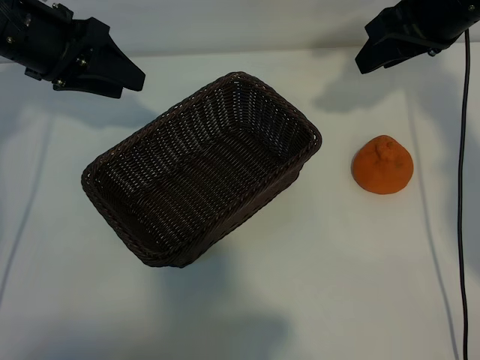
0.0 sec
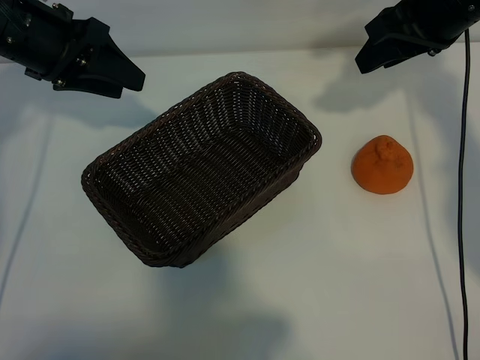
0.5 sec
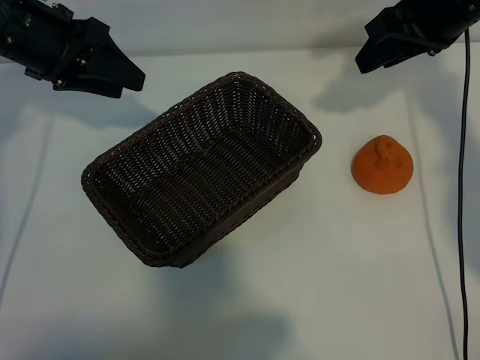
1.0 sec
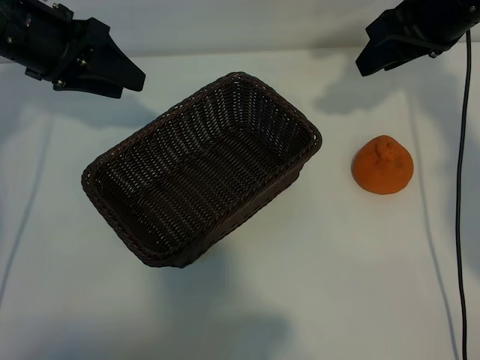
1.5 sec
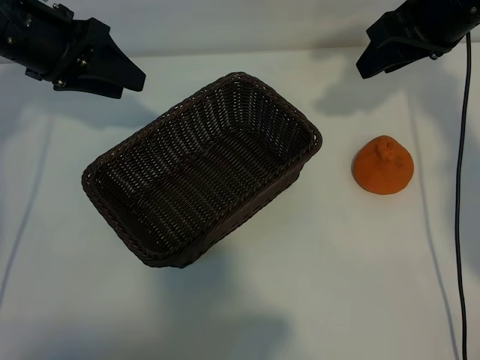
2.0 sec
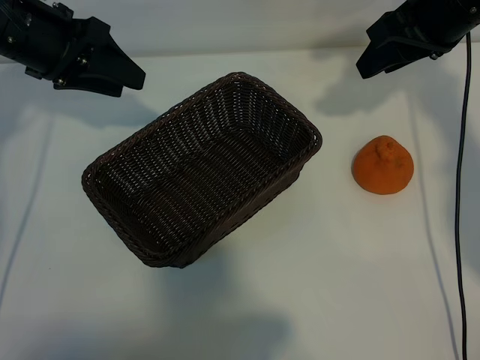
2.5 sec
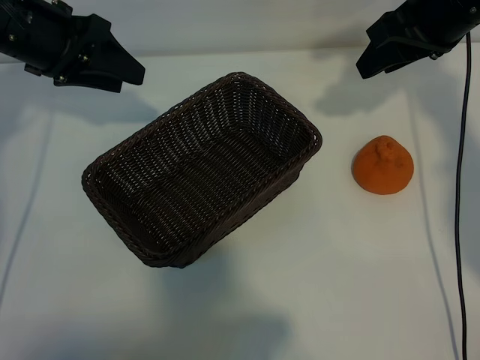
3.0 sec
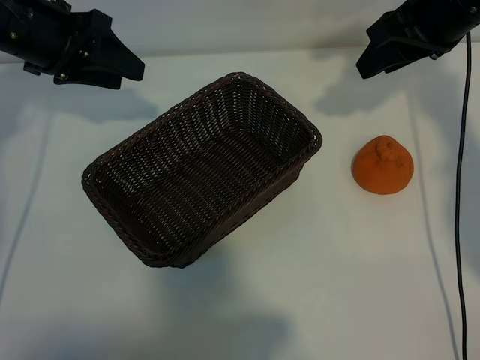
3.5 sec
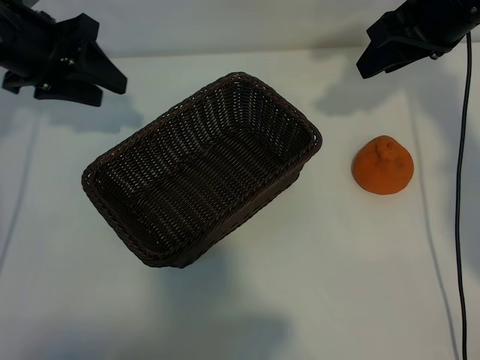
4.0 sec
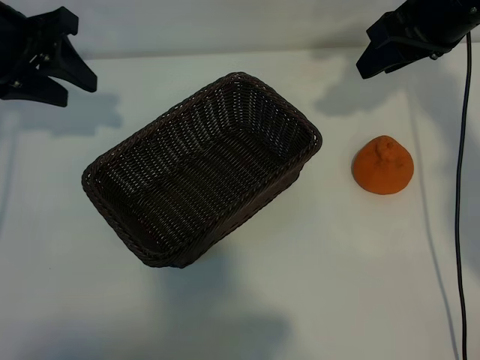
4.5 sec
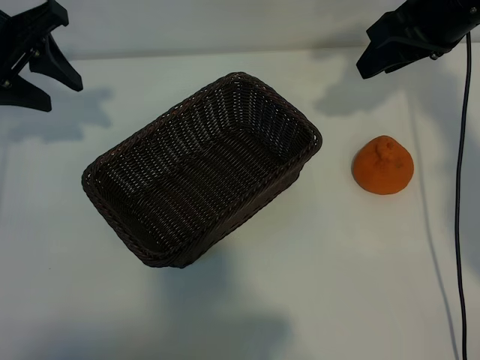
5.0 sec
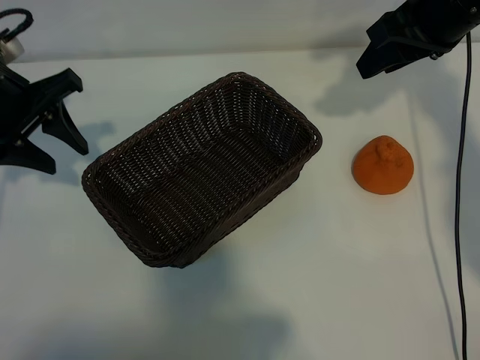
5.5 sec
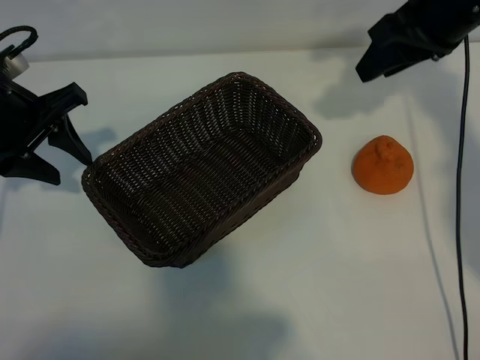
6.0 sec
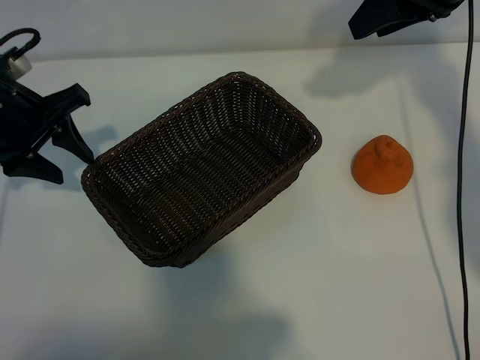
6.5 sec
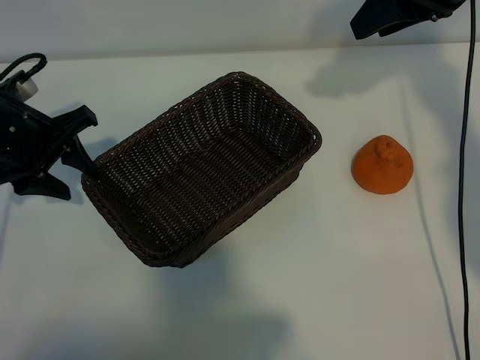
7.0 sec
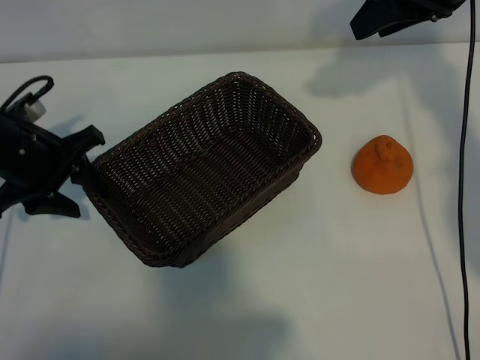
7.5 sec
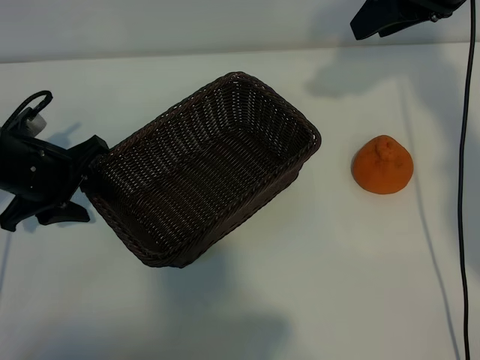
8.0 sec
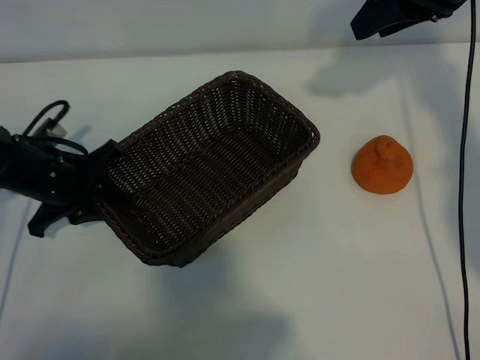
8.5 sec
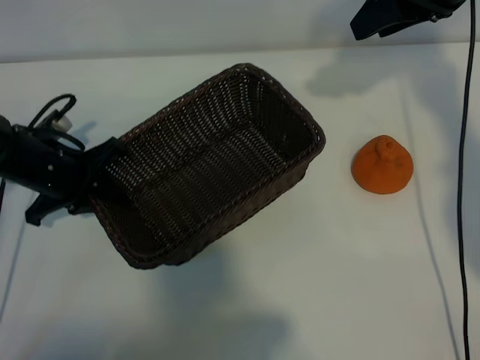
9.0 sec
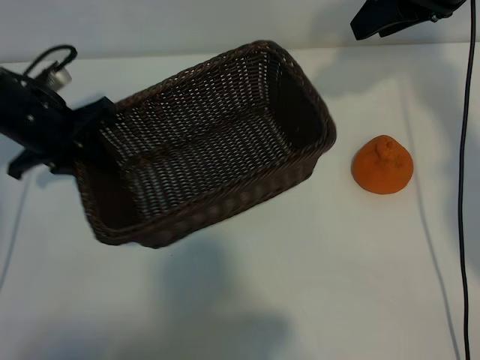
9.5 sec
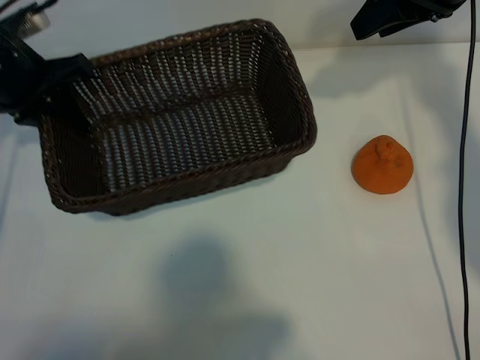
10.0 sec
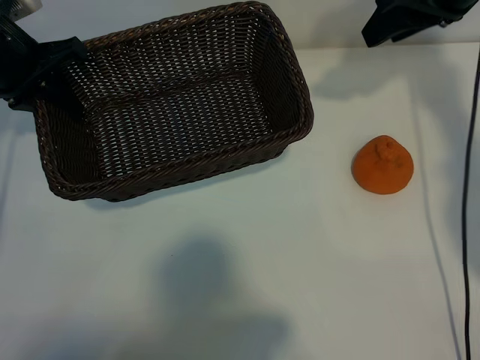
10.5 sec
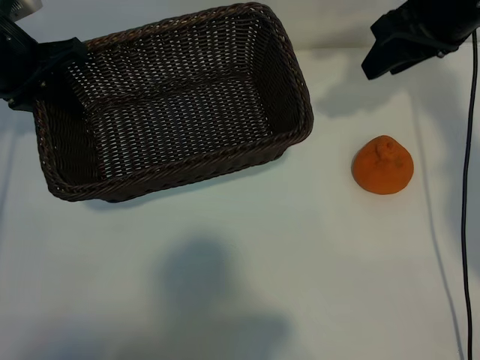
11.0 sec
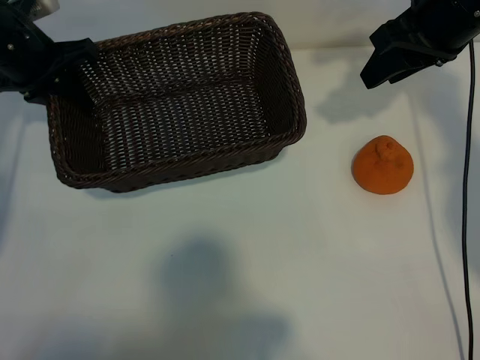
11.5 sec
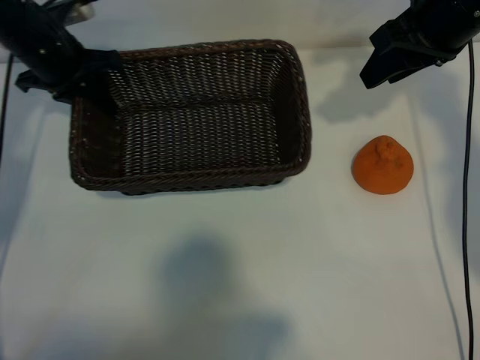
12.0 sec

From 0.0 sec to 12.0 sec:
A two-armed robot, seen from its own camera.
Task of the whole recording: pick up the orange and put it into the basket.
Step, from 1.5 sec to 8.5 sec: Grasp the basket with left gripper.

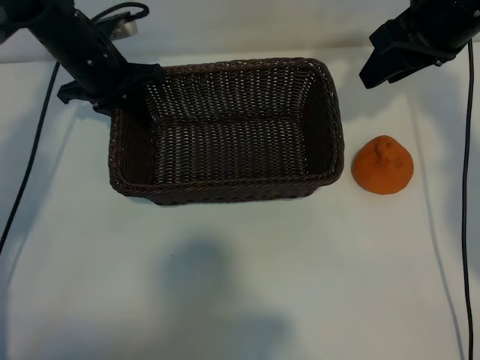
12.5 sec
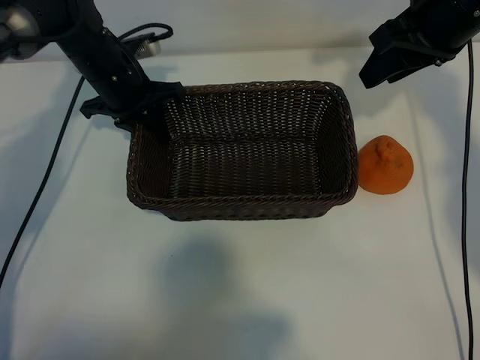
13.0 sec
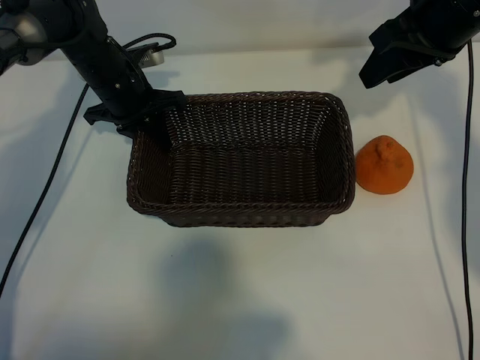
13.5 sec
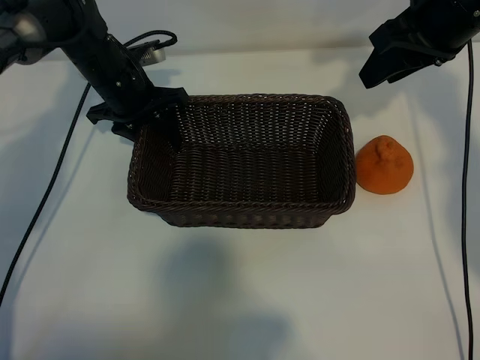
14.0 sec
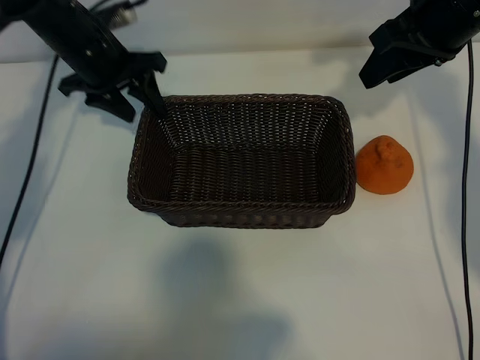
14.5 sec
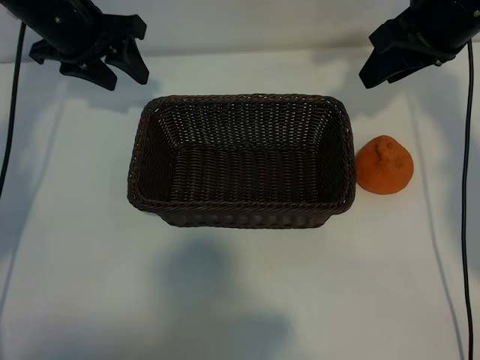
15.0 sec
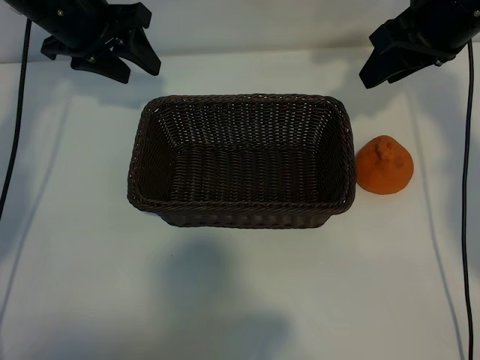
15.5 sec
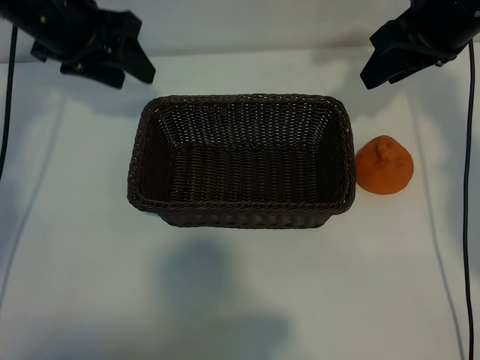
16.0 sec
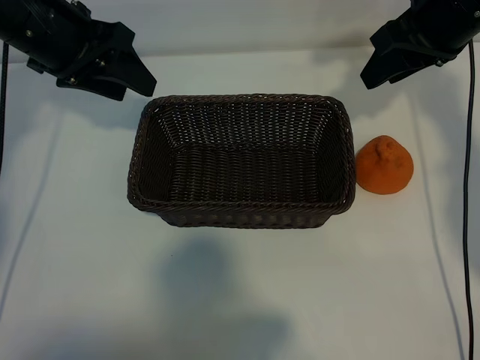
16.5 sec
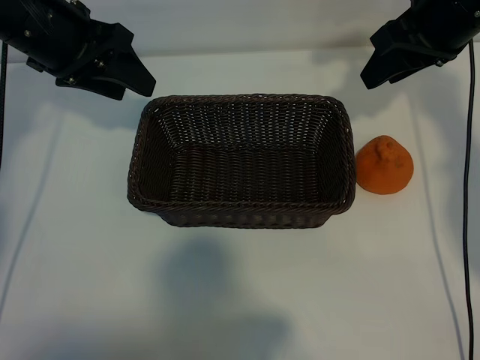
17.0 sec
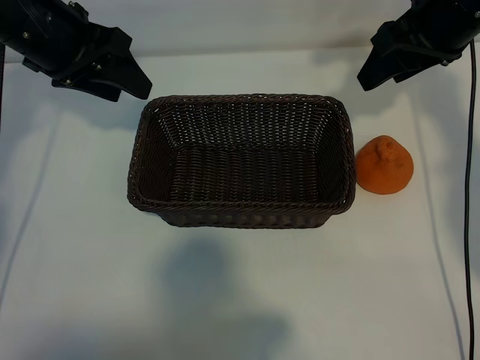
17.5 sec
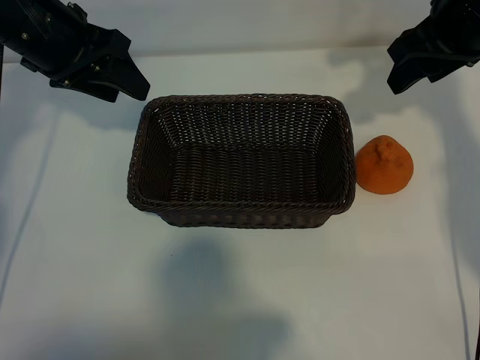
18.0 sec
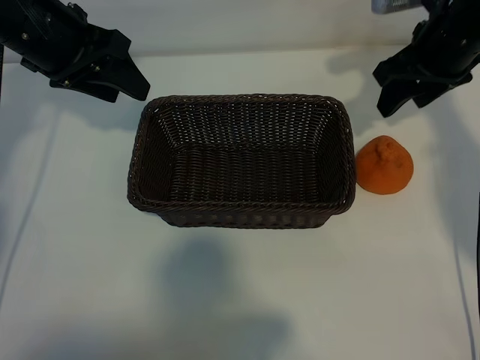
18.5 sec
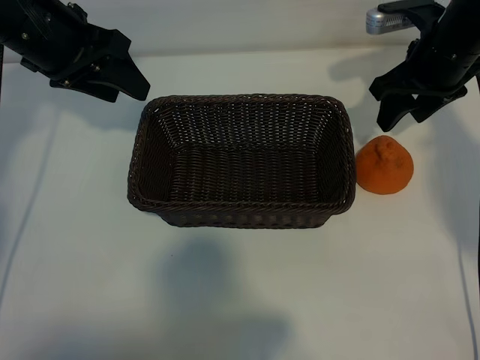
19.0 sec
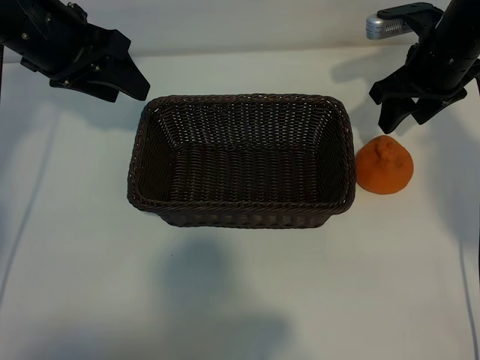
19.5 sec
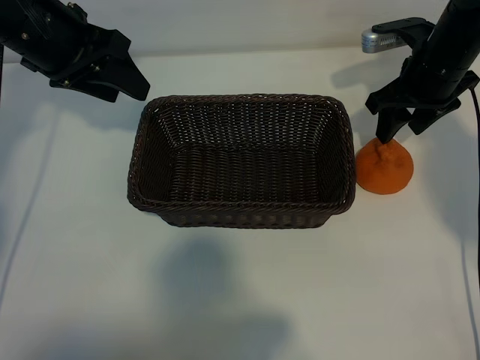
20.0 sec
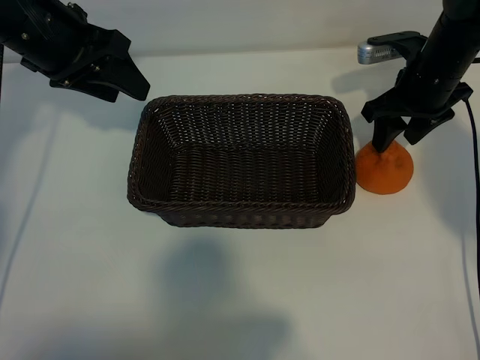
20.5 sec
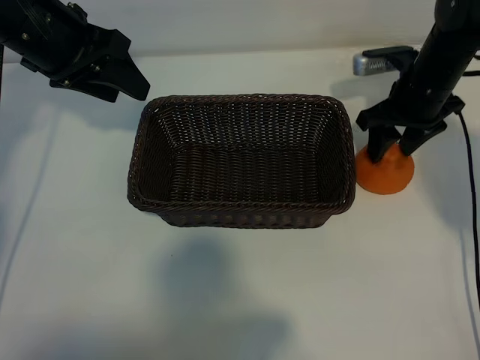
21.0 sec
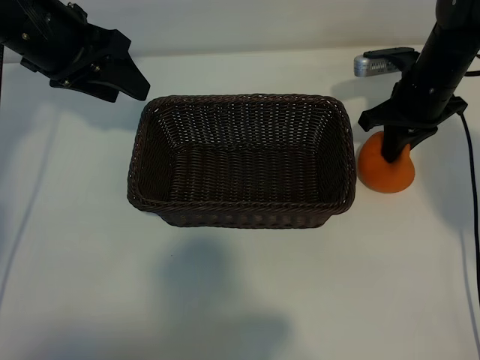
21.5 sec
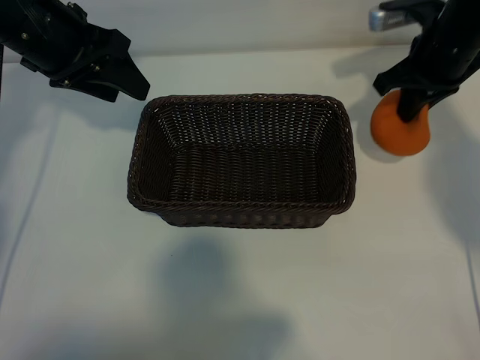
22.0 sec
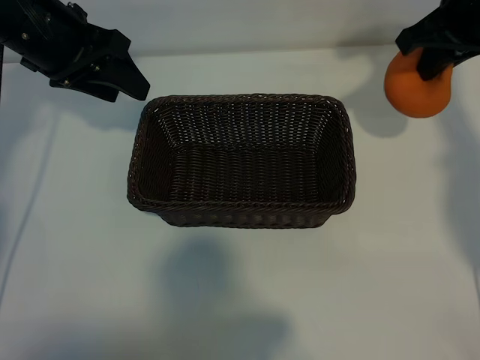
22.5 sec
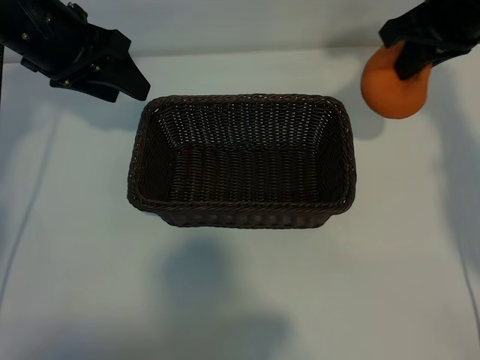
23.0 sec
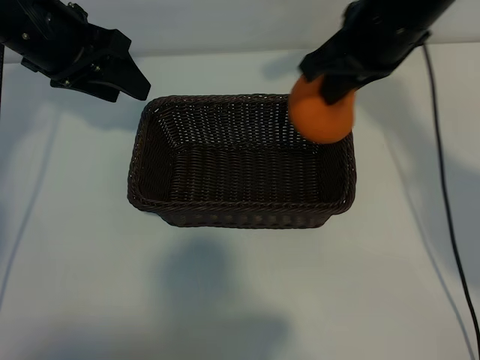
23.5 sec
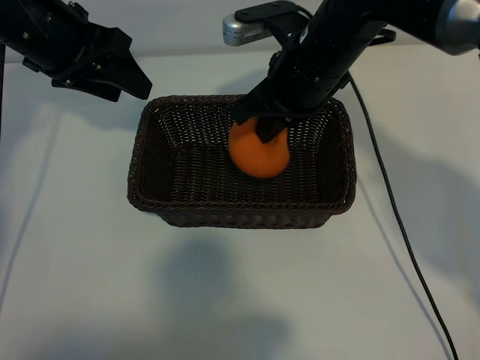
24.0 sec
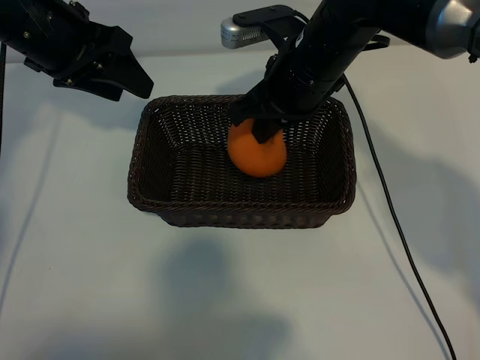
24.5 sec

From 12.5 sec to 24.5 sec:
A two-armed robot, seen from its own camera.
Task of the whole recording: pick up the orange and put it into the basket.
Step, from 14.0 sec to 21.0 sec: Grasp the orange with right gripper.

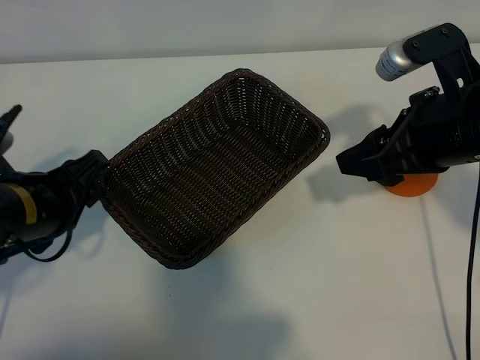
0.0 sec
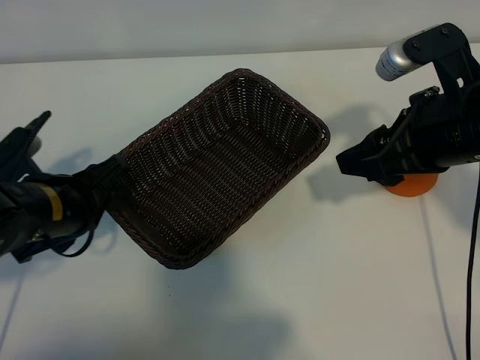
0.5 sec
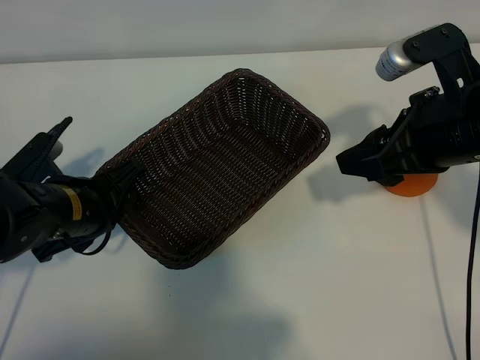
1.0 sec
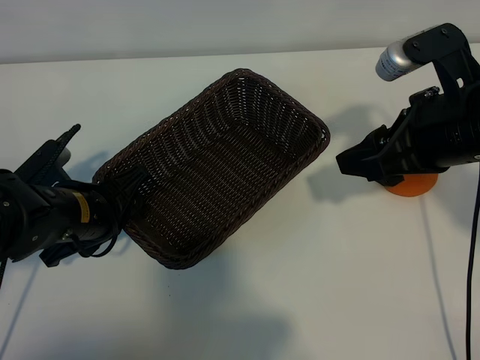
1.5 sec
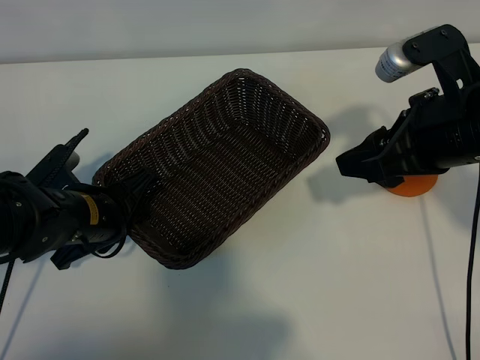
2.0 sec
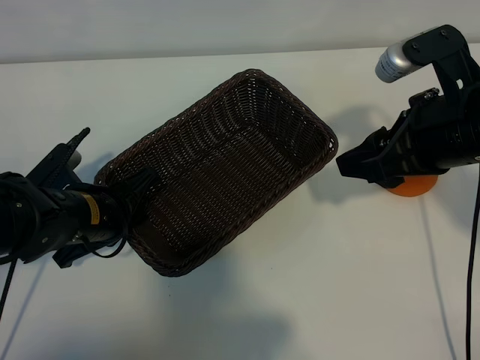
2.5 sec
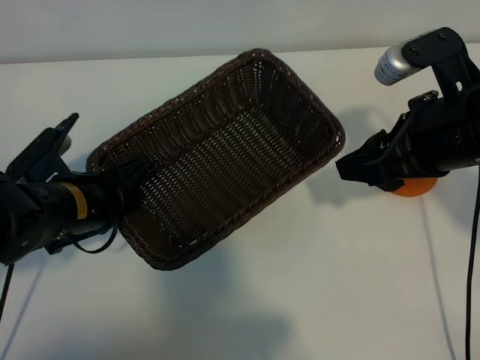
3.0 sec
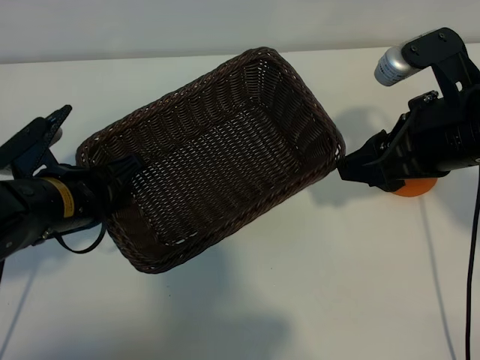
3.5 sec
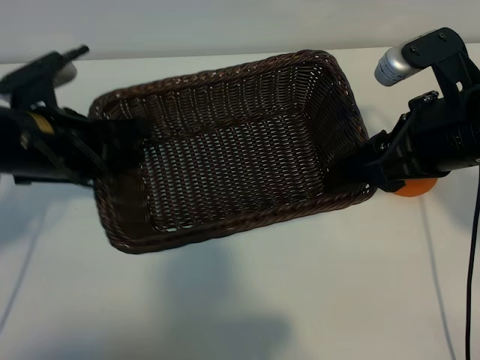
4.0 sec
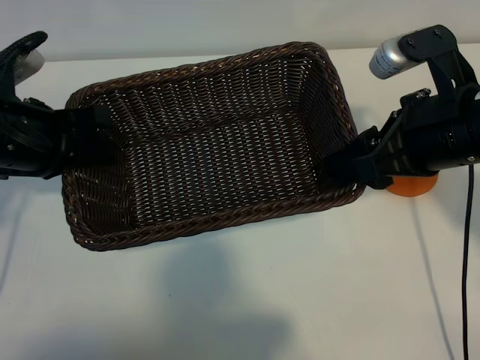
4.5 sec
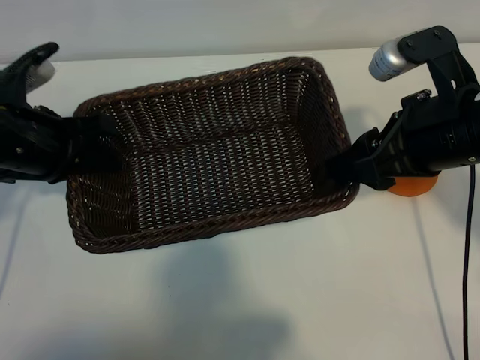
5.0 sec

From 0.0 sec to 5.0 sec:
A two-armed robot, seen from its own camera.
Task of the whole recording: pick up the orange and put it into the basket.
Step, from 0.0 sec to 2.0 sec: Grasp the basket with left gripper.
